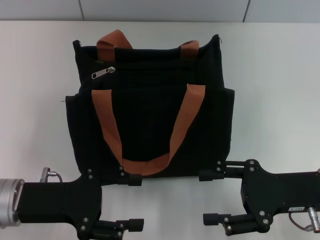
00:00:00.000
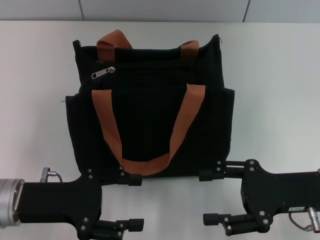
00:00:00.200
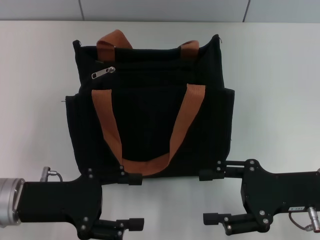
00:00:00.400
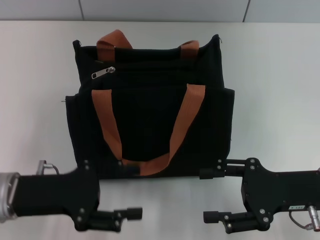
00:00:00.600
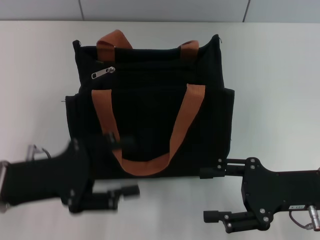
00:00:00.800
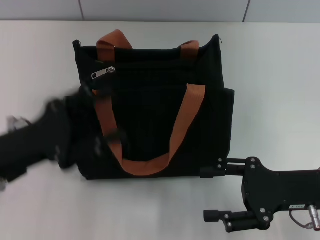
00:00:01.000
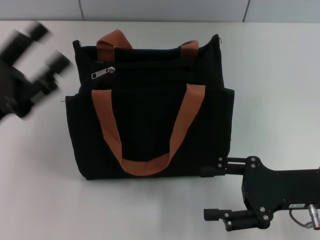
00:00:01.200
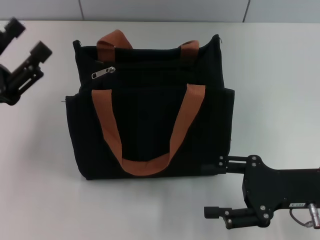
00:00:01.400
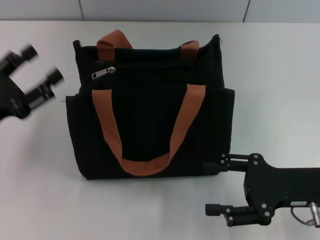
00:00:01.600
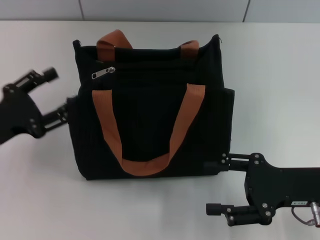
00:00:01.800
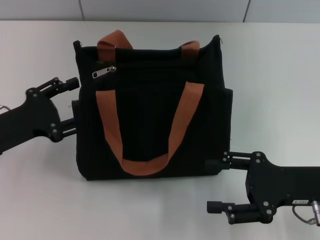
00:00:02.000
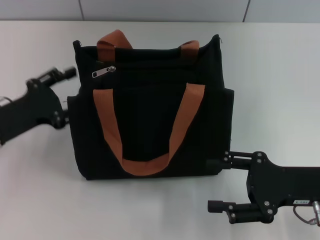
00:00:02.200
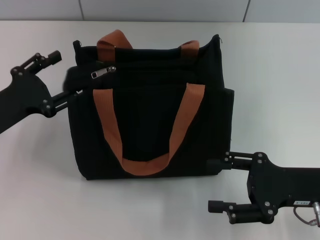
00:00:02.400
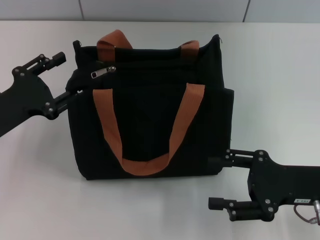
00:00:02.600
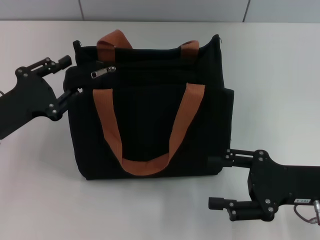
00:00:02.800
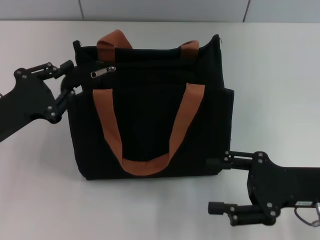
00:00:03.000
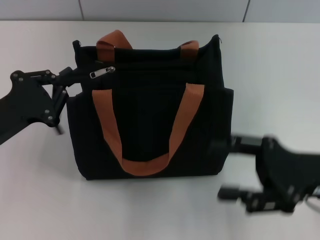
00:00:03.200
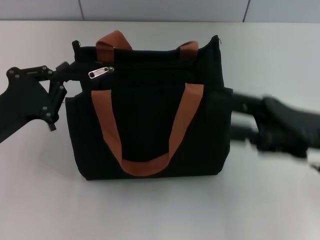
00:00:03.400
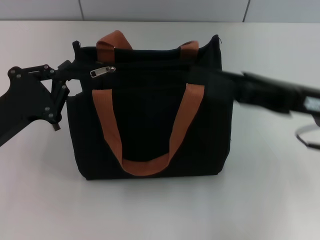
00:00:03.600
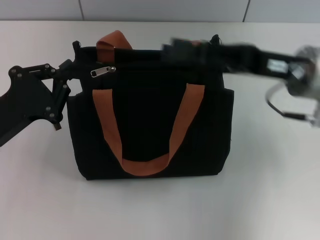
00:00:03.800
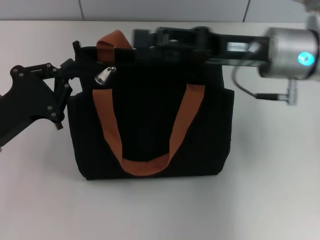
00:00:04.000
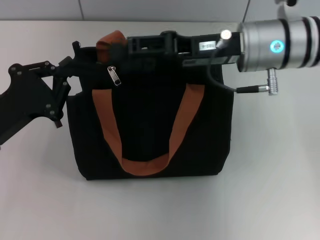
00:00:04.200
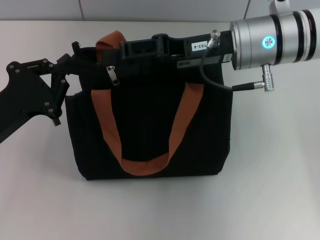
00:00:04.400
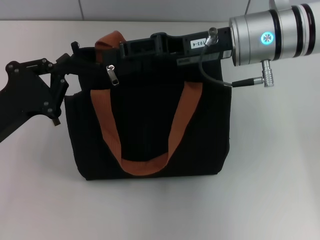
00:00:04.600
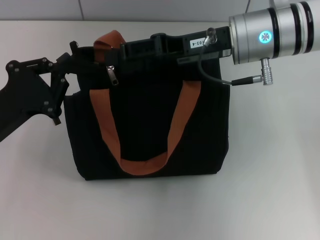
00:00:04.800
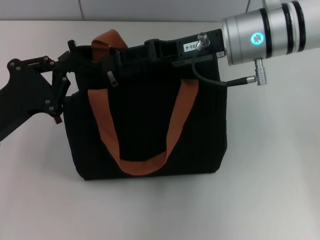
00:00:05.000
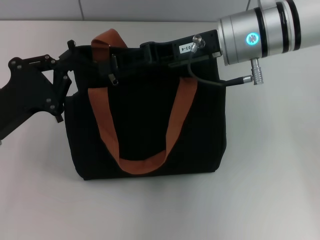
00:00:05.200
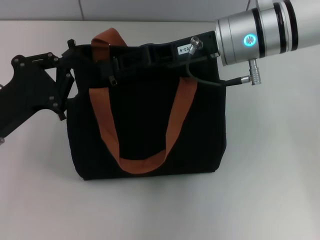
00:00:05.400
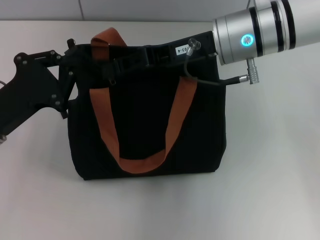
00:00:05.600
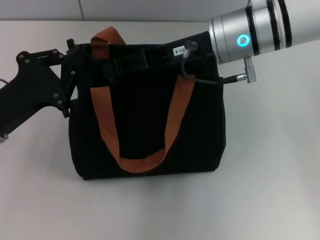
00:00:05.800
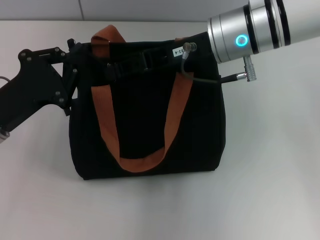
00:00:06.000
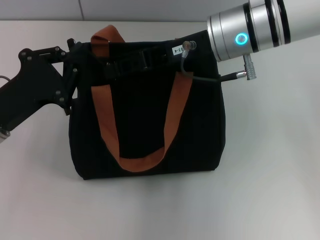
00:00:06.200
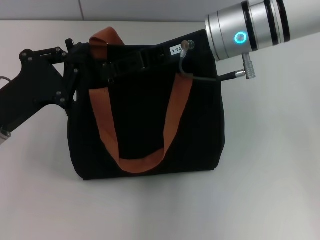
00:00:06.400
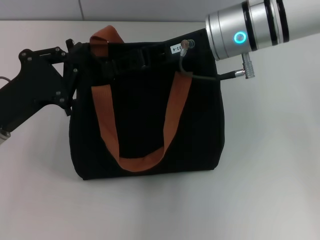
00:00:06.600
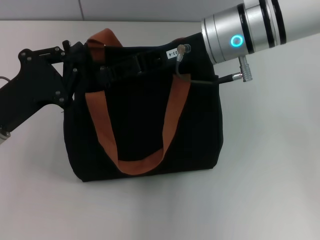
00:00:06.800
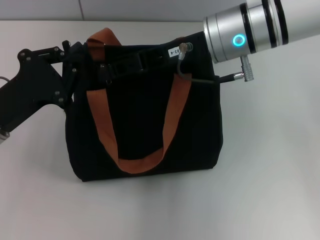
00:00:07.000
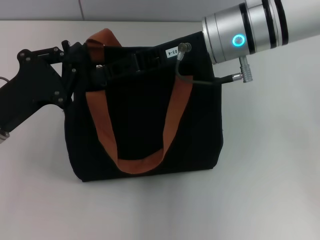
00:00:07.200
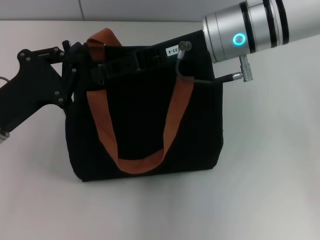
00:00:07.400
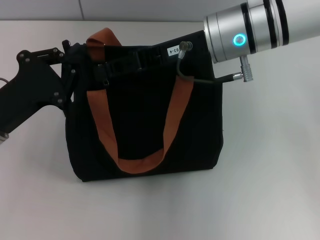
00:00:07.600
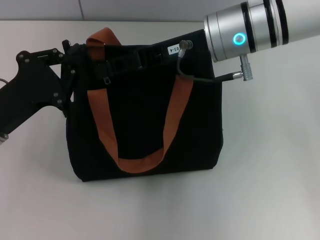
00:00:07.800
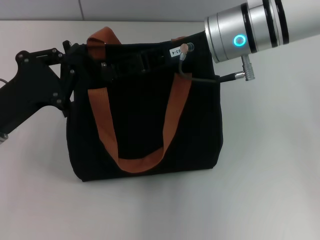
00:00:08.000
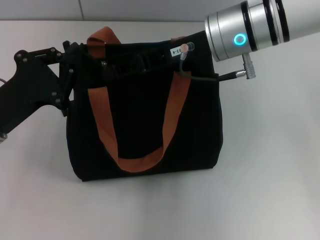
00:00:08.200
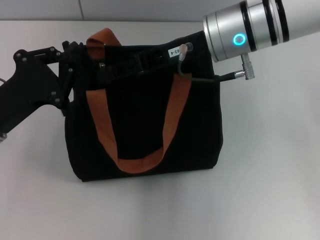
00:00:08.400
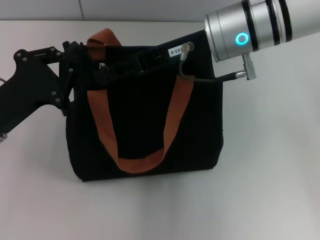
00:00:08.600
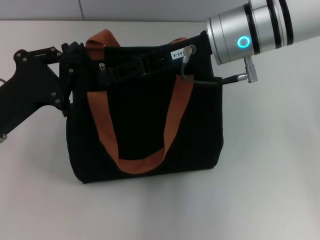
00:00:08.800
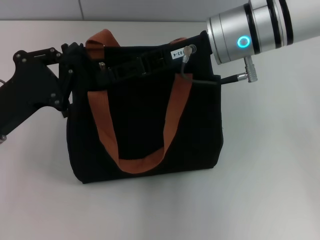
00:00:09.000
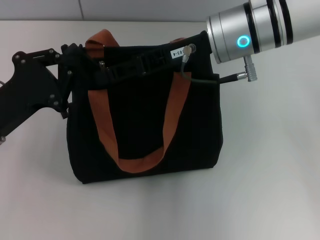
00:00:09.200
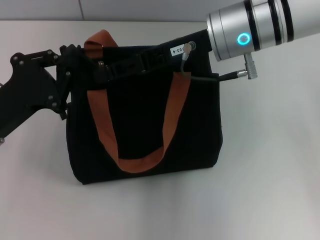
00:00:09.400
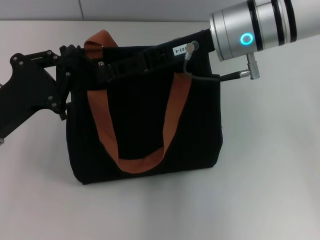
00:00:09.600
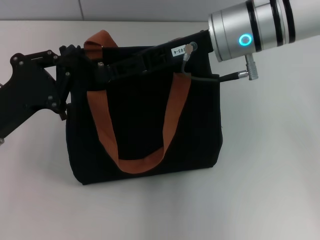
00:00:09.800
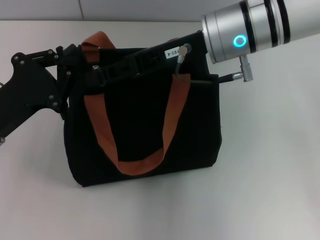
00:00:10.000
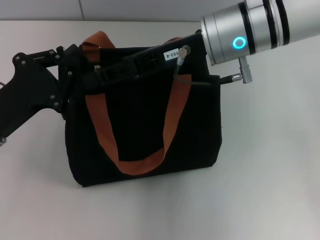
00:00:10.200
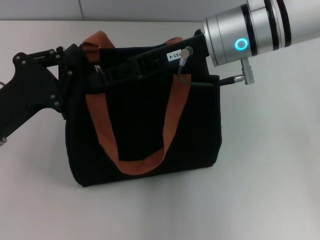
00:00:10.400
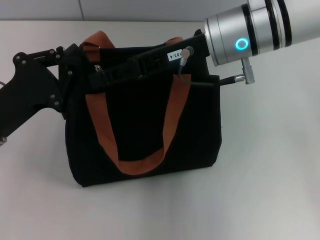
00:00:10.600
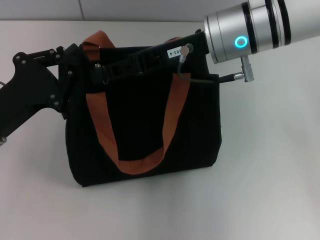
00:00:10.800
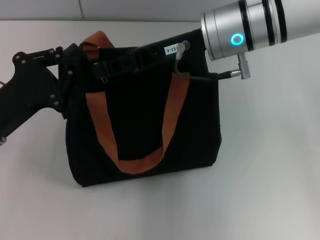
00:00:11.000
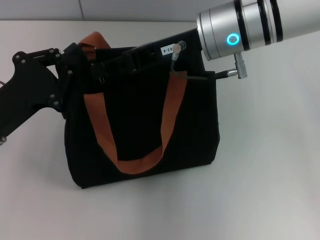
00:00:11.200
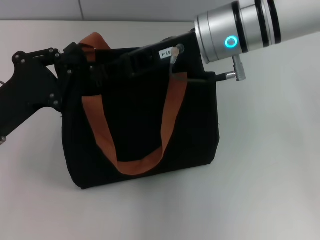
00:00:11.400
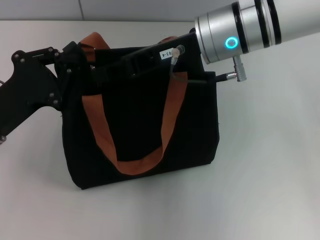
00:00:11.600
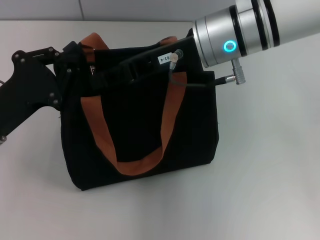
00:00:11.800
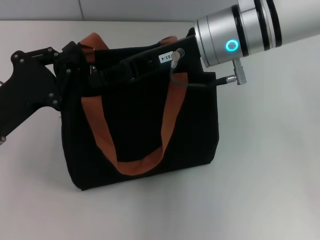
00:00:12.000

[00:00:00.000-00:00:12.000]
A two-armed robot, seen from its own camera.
00:00:00.000 to 00:00:01.600: The left gripper moves to the left, approximately 5 cm.
00:00:01.600 to 00:00:03.000: The left gripper closes.
00:00:03.000 to 00:00:04.400: The left gripper closes. The right gripper shifts roughly 20 cm forward, to the left and upward.
00:00:04.400 to 00:00:06.000: The right gripper closes its fingers.
00:00:06.000 to 00:00:10.400: There are only small adjustments of the grippers.
00:00:10.400 to 00:00:12.000: The right gripper closes its fingers.

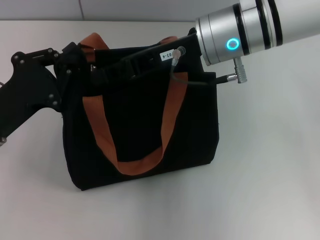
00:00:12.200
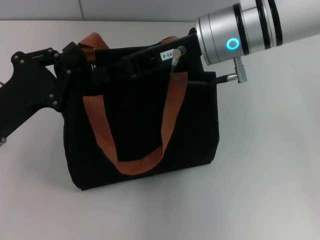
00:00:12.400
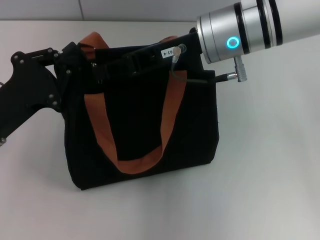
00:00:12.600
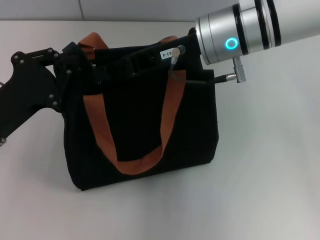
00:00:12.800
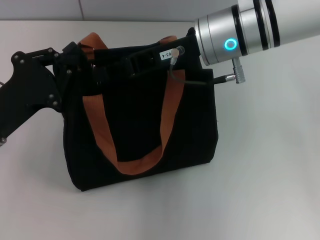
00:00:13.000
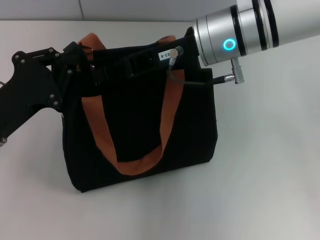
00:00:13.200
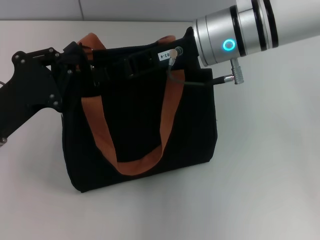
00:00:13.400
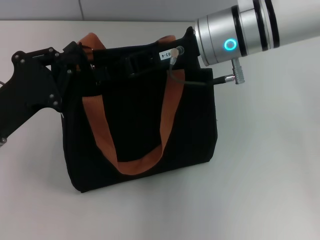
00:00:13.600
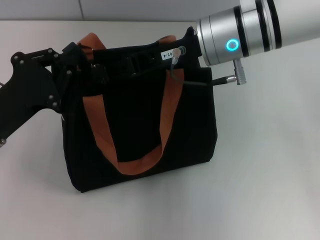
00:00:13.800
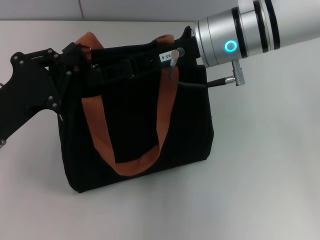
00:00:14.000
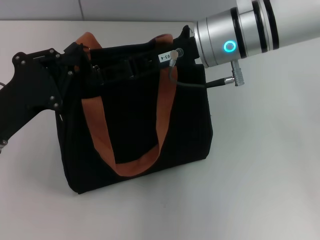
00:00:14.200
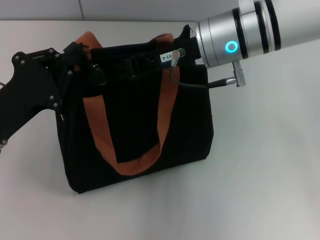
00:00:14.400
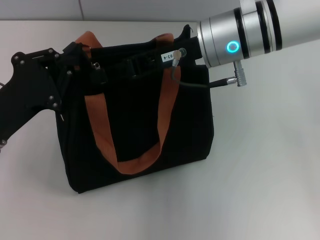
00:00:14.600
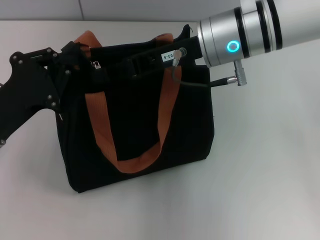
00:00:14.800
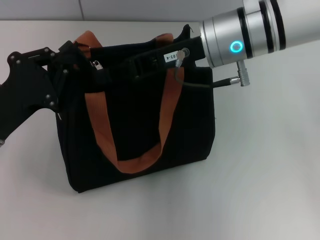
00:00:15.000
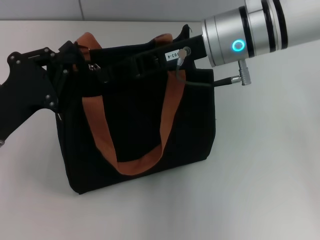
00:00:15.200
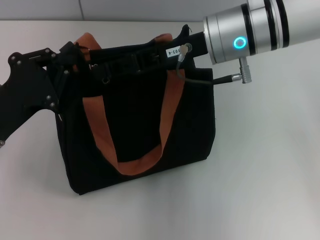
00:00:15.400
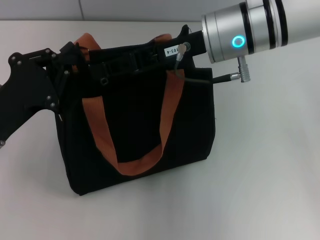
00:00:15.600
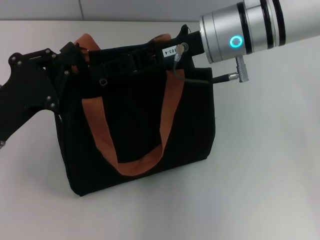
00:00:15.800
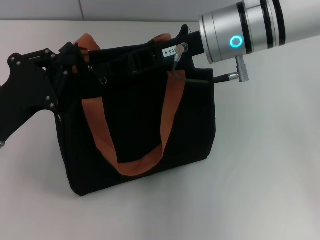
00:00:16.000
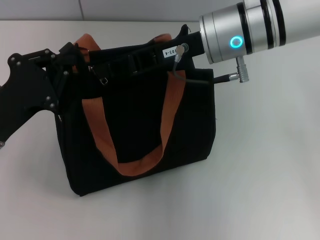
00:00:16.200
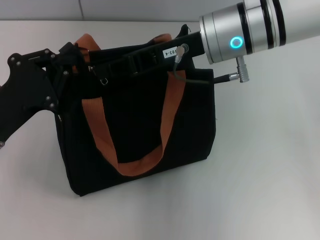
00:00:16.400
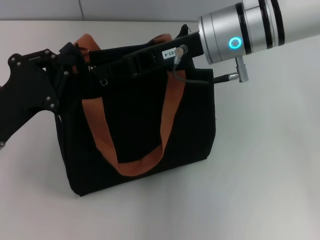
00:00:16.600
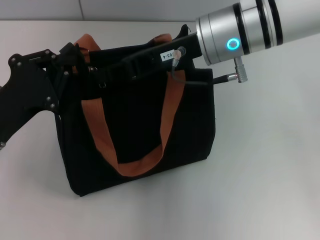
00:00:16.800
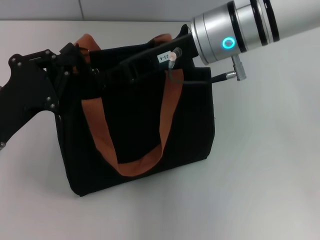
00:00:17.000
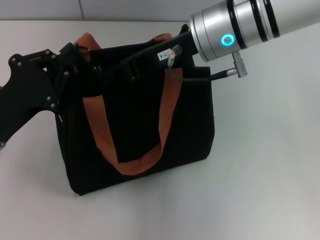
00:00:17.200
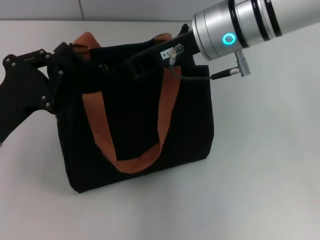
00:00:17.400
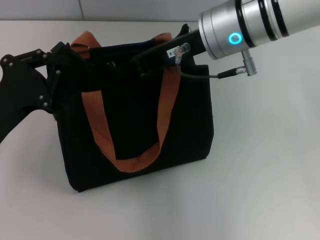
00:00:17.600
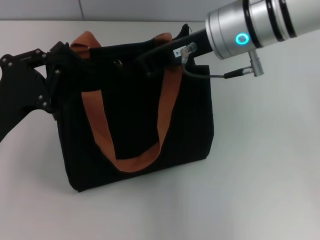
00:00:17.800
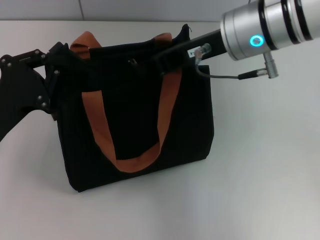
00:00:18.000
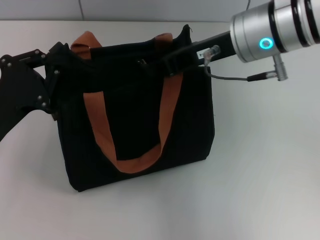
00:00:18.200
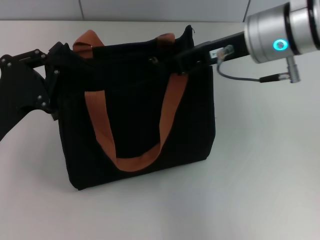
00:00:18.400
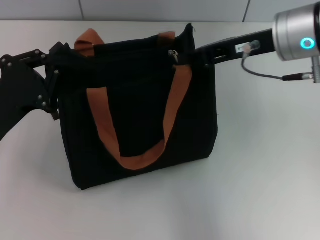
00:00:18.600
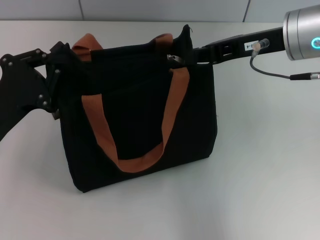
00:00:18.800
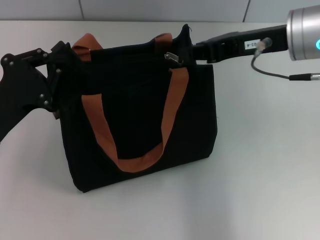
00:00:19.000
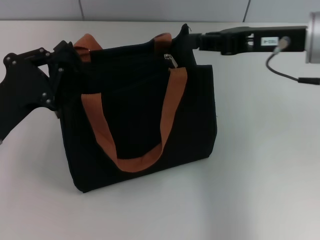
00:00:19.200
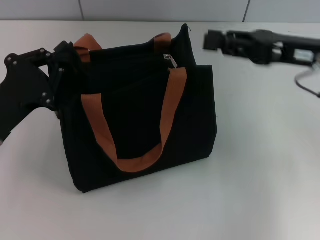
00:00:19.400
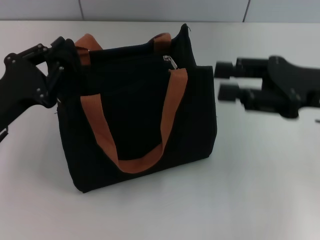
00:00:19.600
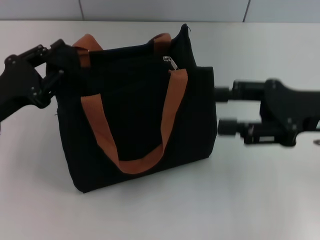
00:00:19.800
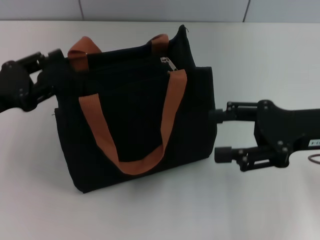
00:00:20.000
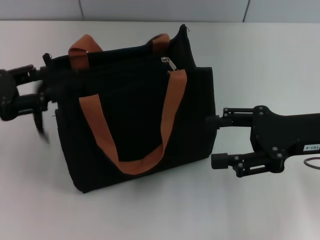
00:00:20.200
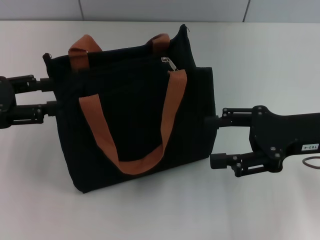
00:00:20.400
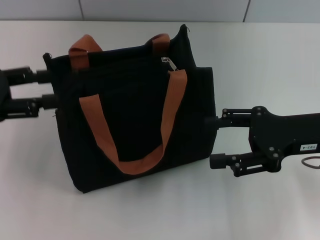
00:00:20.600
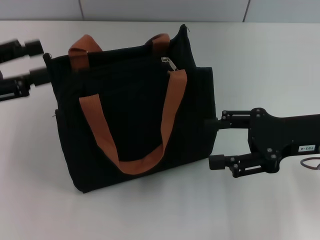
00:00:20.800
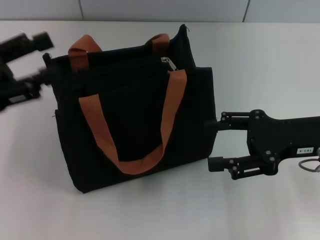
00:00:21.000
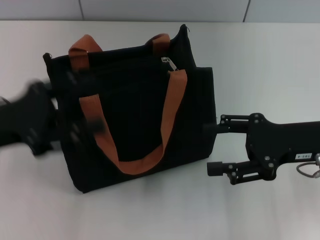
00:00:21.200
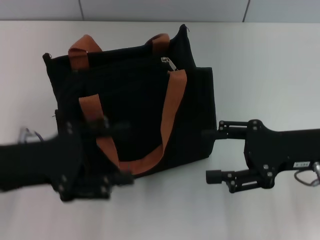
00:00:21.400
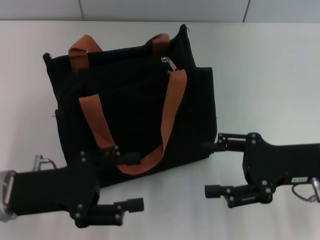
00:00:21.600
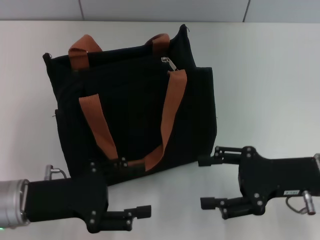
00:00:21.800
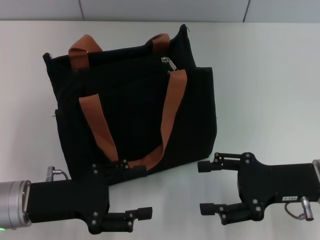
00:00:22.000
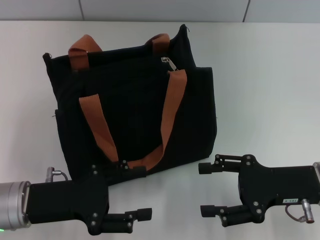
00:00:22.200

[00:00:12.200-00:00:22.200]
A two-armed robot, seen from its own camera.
Step, 00:00:12.200 to 00:00:19.200: Pull up the zipper with your right hand.
Step, 00:00:19.400 to 00:00:20.600: Grab the zipper with your left hand.
00:00:12.200 to 00:00:16.400: Both grippers stay put.
00:00:16.400 to 00:00:18.000: There are only small adjustments of the grippers.
00:00:18.000 to 00:00:19.400: The right gripper goes approximately 15 cm to the right.
00:00:19.400 to 00:00:20.800: The right gripper travels downward by about 5 cm, and opens. Meanwhile the left gripper moves upward and to the left, approximately 10 cm, and opens.
00:00:20.800 to 00:00:22.200: The right gripper heads downward, covering some 5 cm. The left gripper shifts about 15 cm downward, to the right and backward.
